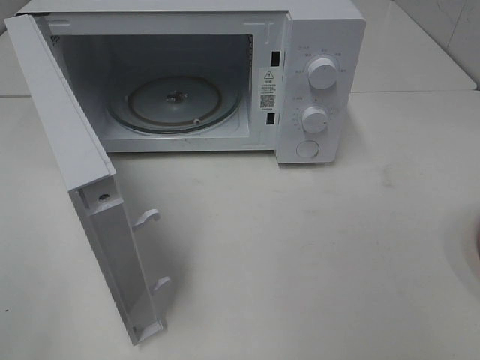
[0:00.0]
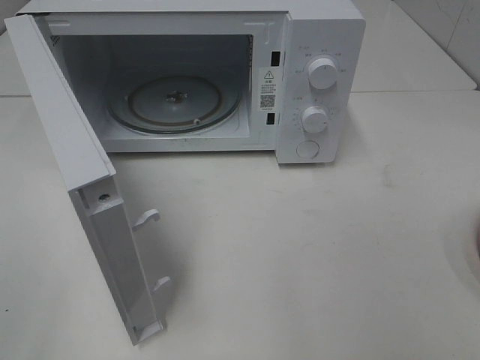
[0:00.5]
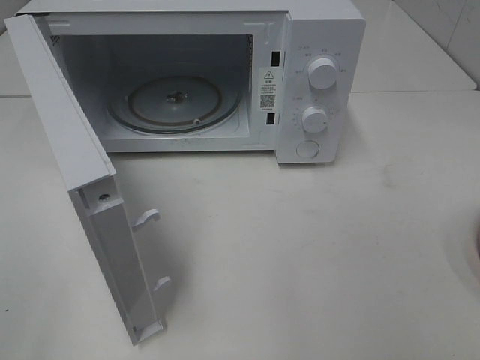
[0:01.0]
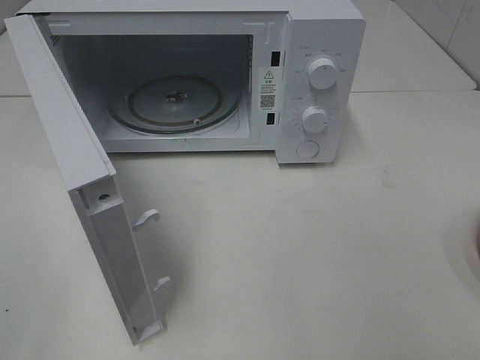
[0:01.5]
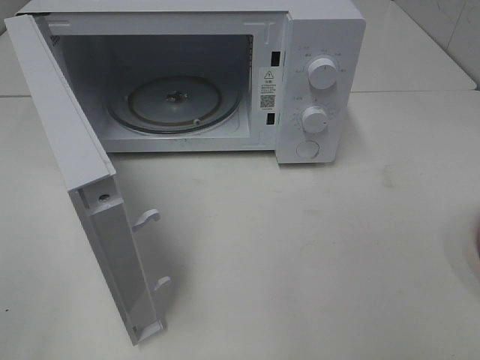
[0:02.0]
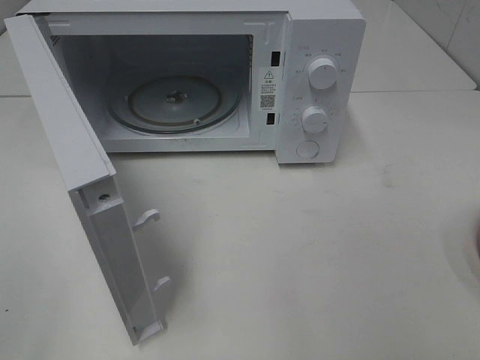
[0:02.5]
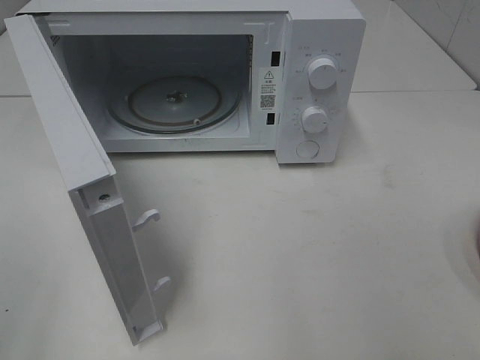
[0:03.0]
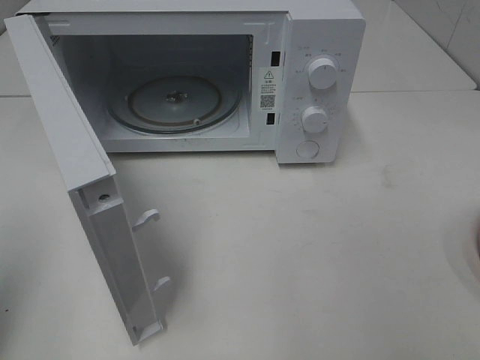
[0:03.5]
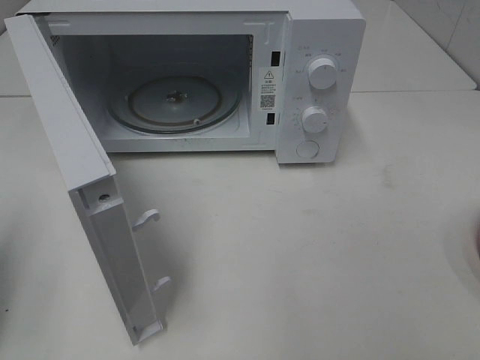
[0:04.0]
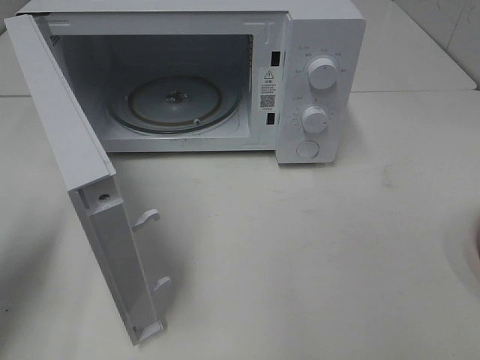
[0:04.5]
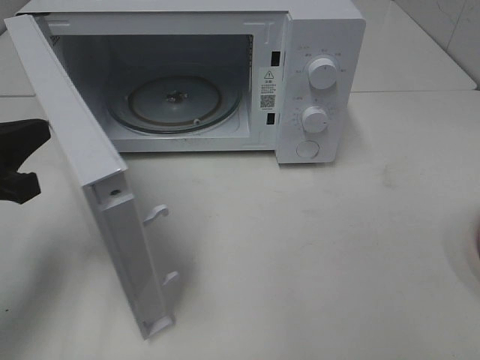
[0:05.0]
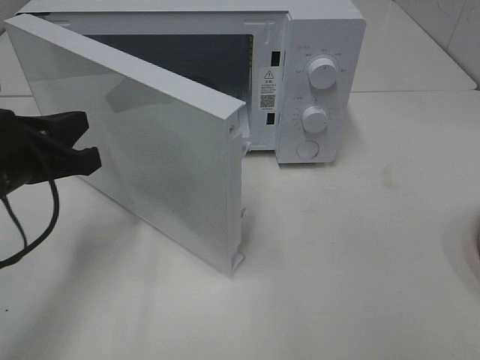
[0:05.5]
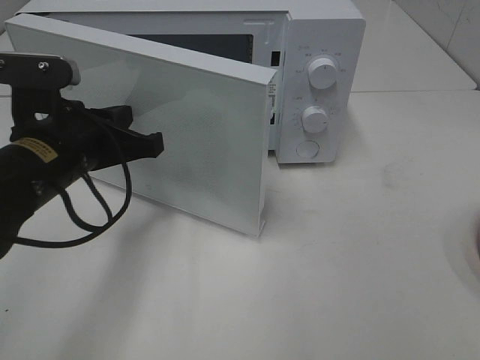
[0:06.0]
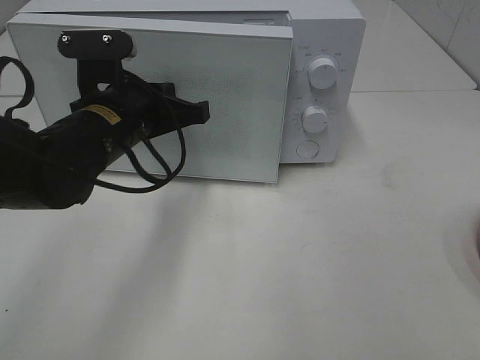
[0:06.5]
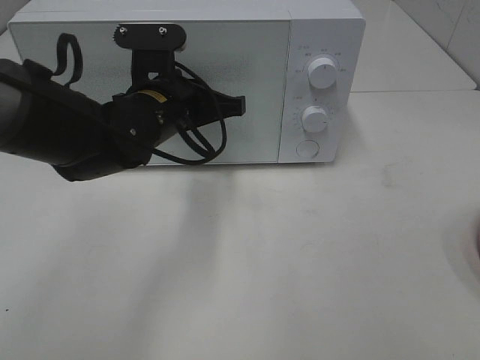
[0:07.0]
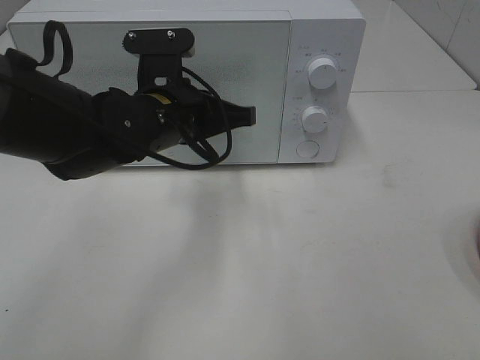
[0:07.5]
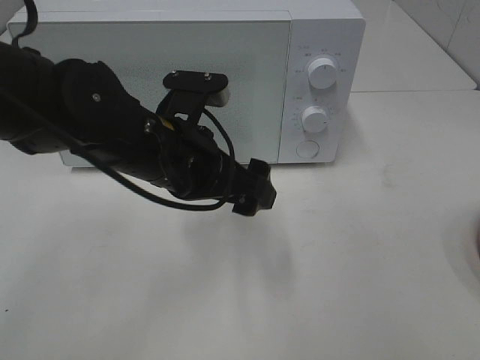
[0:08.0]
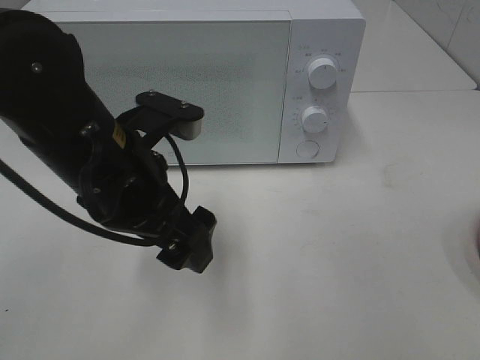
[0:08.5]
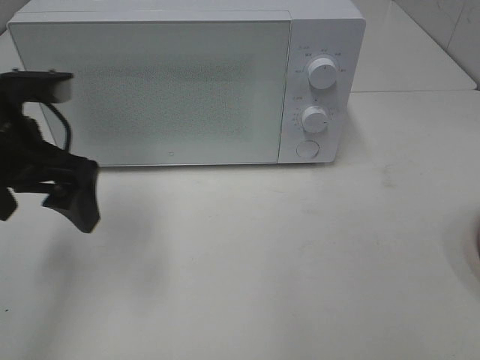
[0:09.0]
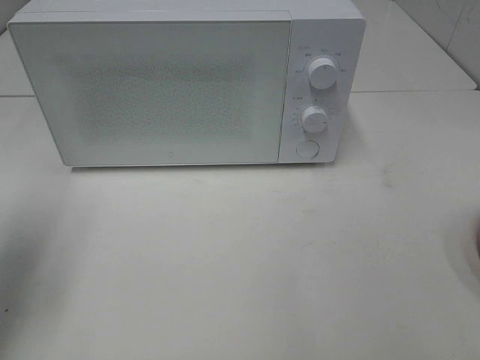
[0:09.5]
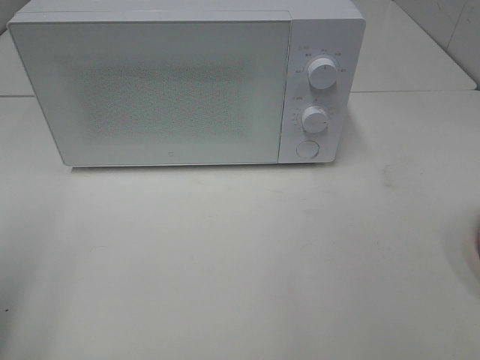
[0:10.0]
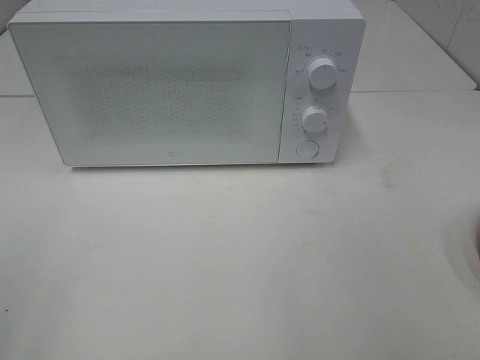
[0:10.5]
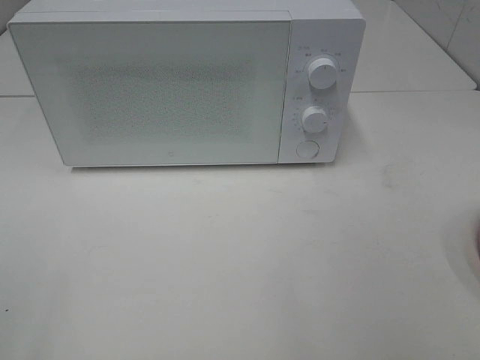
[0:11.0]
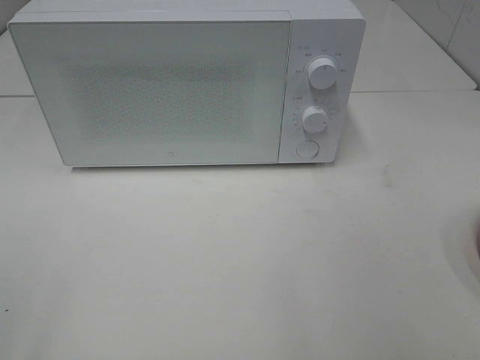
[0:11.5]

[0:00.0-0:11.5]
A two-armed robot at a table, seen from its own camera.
Task of the whole recording: Heat the burger.
Step, 0:00.0 to 0:07.5: Left hand: close the microwave door.
0:02.0 to 0:04.0: The left gripper moves forward and downward, approximately 15 cm, and closes.
0:04.0 to 0:06.0: The left gripper goes roughly 20 cm to the right and forward.
0:06.0 to 0:07.5: The left gripper is displaced to the right by approximately 10 cm.
0:07.5 to 0:09.5: The left gripper heads to the left, covering about 25 cm, and opens its fingers.
0:09.5 to 0:11.5: The left gripper is displaced backward by approximately 20 cm.
